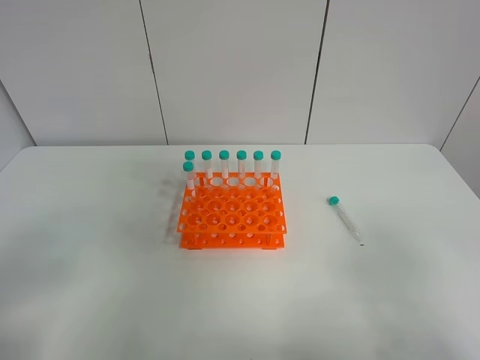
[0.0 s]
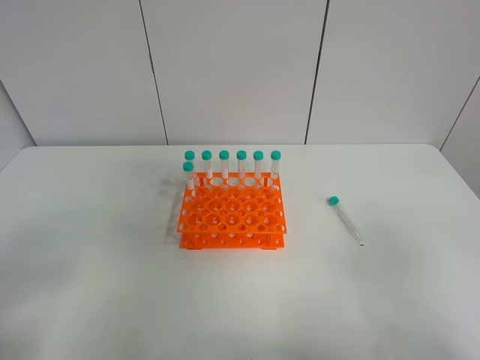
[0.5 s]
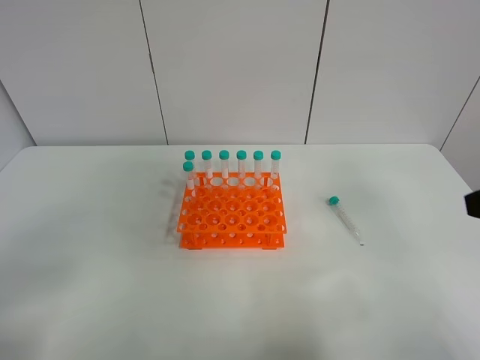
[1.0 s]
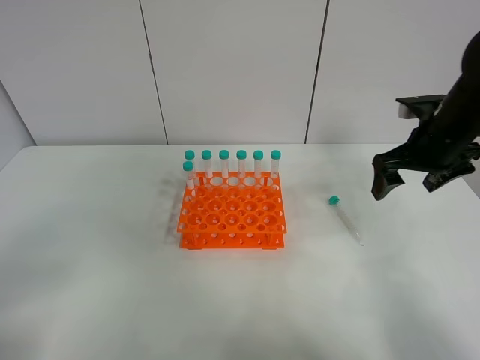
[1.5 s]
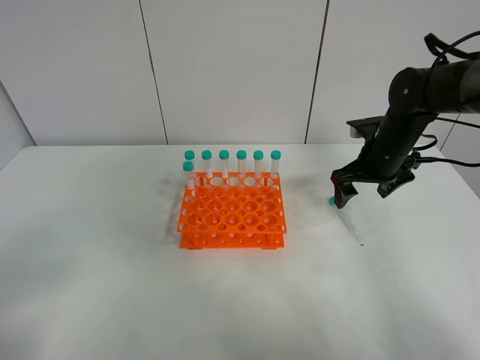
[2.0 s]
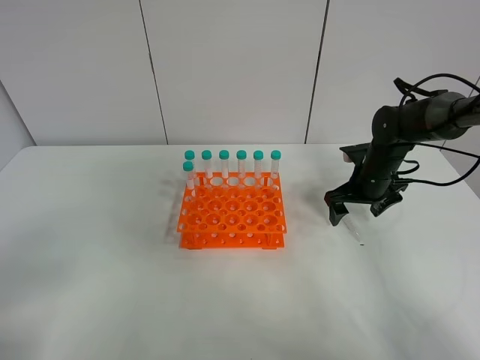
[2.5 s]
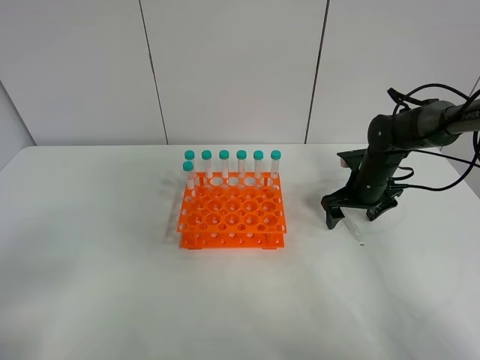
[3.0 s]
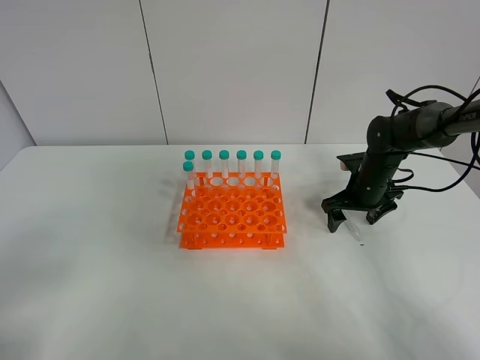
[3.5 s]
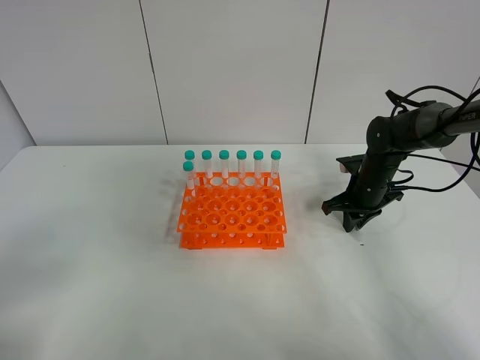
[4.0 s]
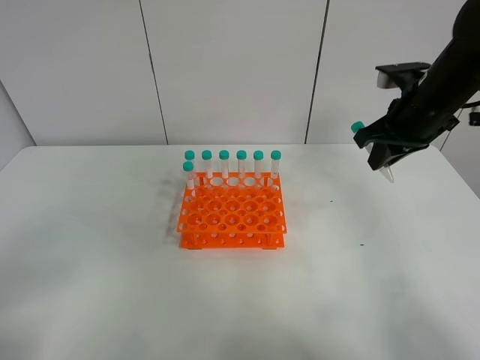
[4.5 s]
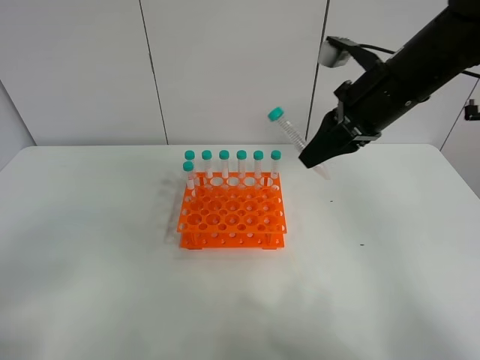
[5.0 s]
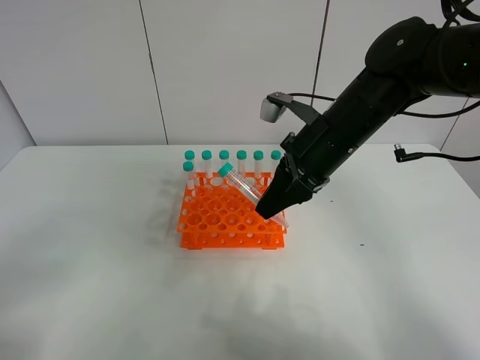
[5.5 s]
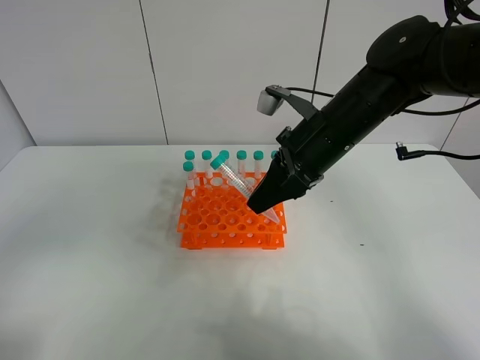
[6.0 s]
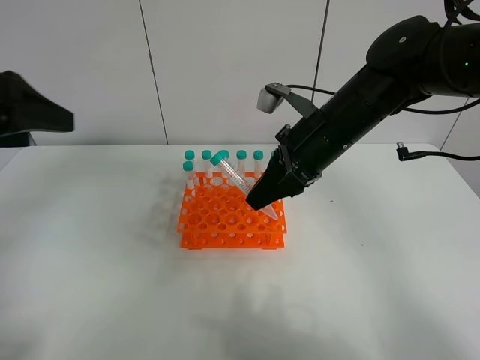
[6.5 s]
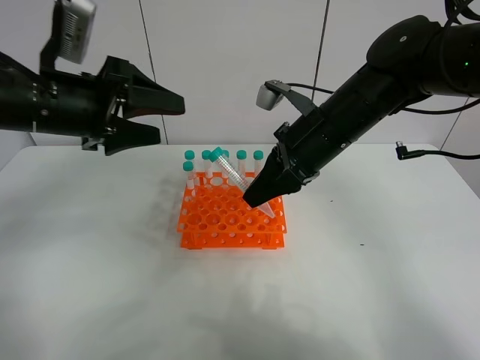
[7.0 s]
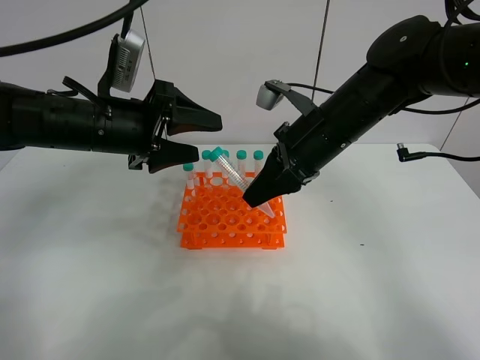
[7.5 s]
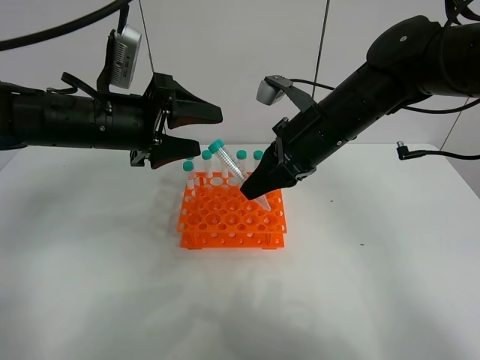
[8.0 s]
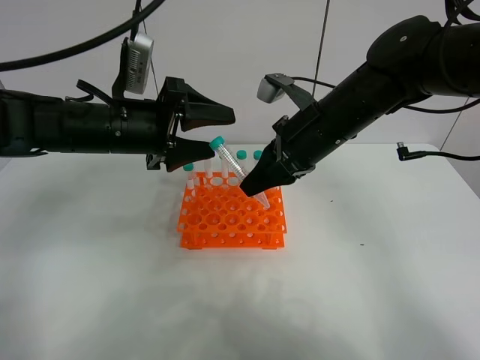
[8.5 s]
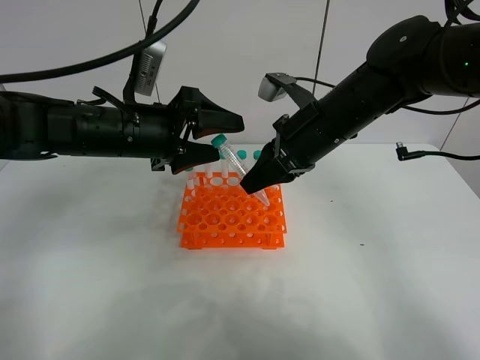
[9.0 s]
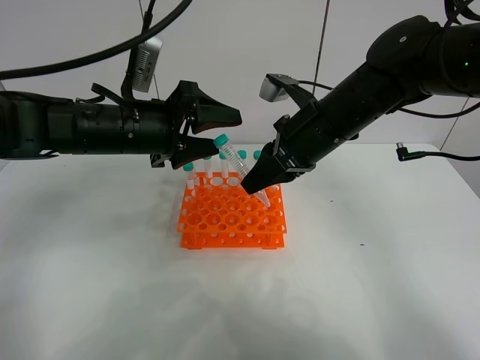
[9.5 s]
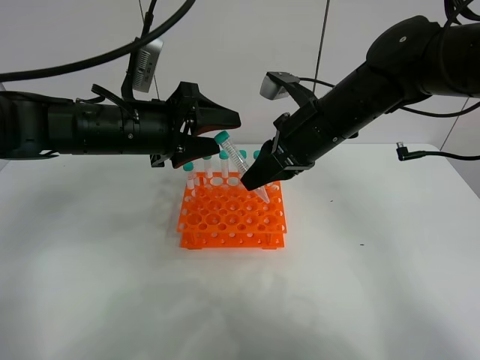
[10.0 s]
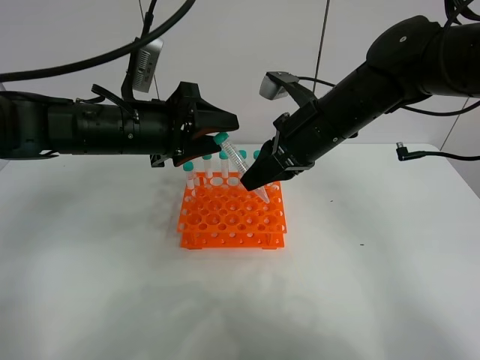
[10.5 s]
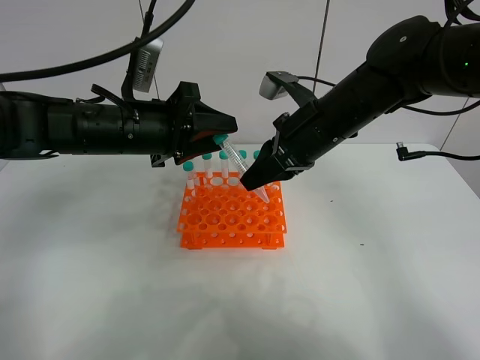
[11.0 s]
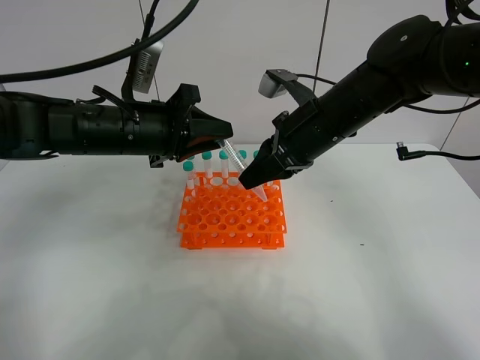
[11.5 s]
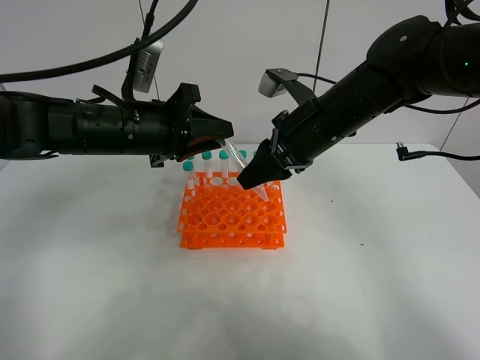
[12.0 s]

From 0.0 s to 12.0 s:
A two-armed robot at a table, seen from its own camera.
Task of the whole recording: Put the test tube on the table back onto the test tube rack.
Step, from 0.0 s to 4.5 s: Pick up the test tube with the right gripper.
From 0.0 s to 2.0 s: The right gripper heads forward, covering about 40 cm.
From 2.0 s to 4.0 s: The right gripper heads downward, covering about 10 cm, and closes up.
From 4.0 s to 6.0 s: The right gripper is displaced upward, to the left and backward by some 25 cm. Meanwhile the left gripper heads upward, covering roughly 5 cm.
From 6.0 s to 8.0 s: The left gripper travels forward and to the right by roughly 30 cm.
From 8.0 s to 10.0 s: There are only small adjustments of the grippers.
From 10.0 s to 12.0 s: The left gripper closes up. The right gripper opens its fingers.

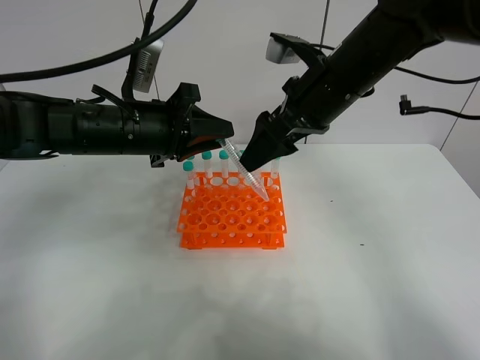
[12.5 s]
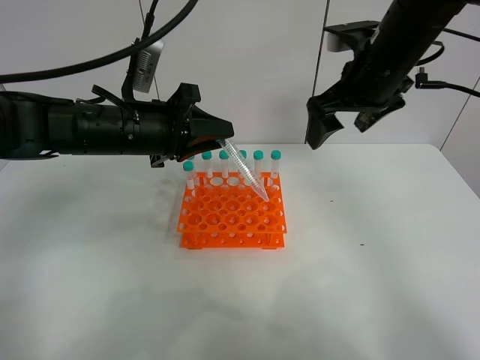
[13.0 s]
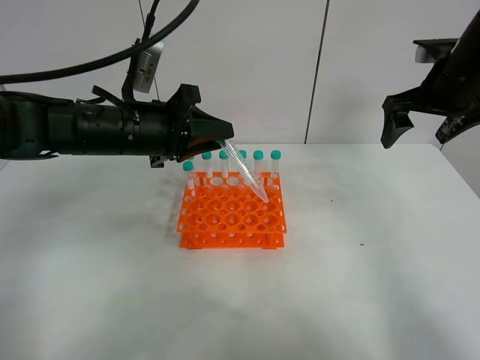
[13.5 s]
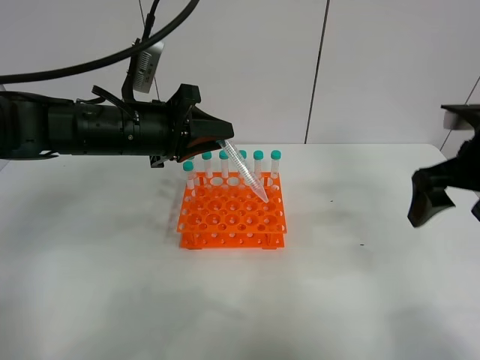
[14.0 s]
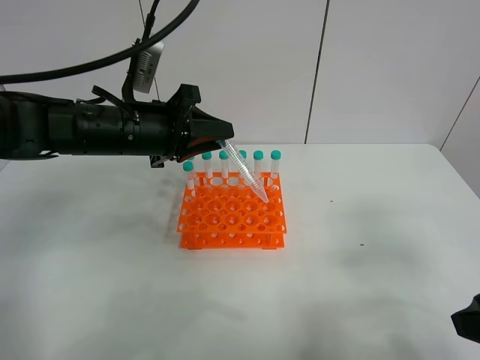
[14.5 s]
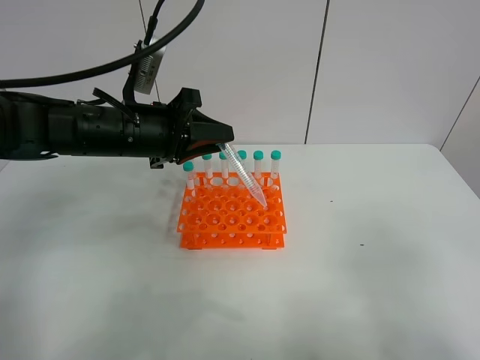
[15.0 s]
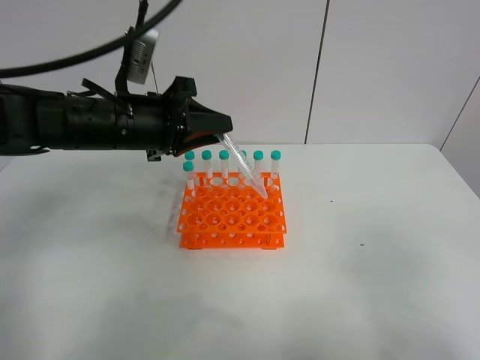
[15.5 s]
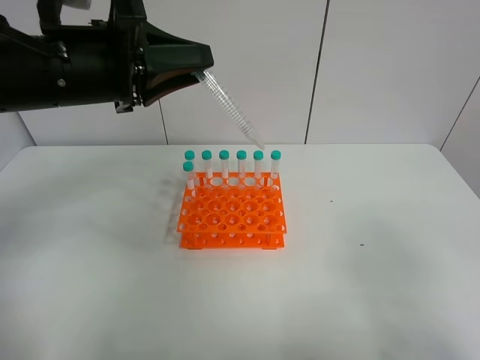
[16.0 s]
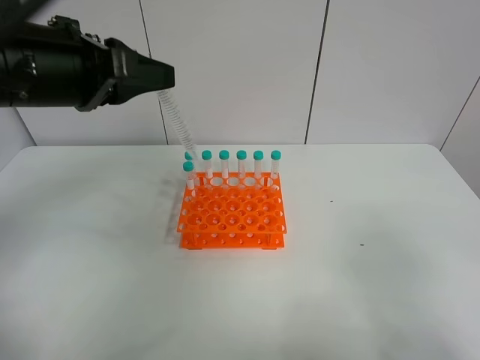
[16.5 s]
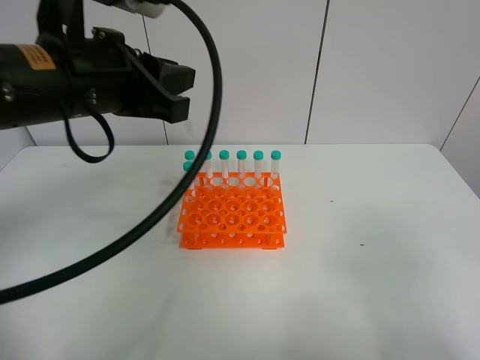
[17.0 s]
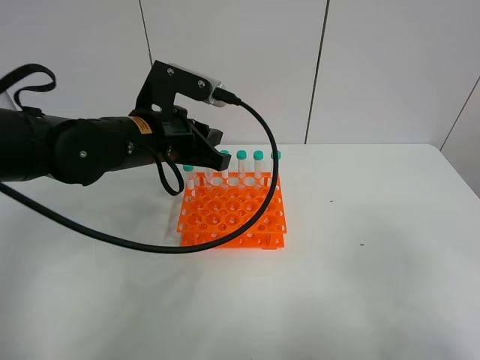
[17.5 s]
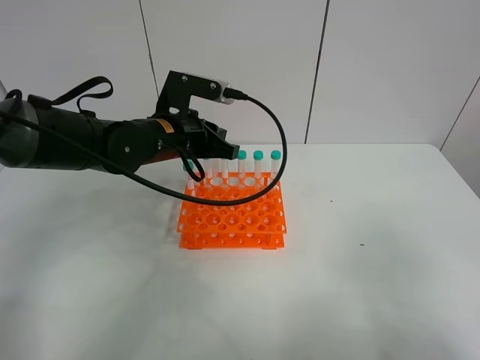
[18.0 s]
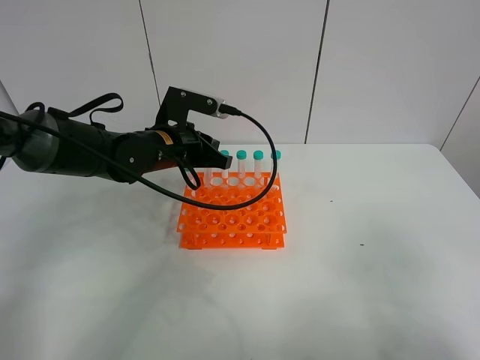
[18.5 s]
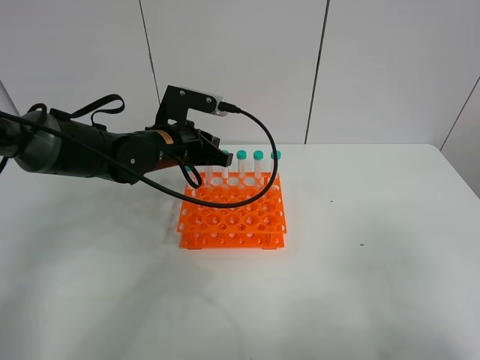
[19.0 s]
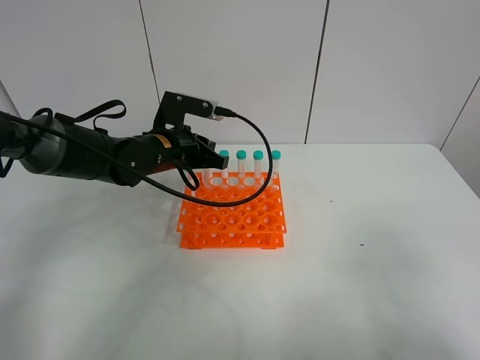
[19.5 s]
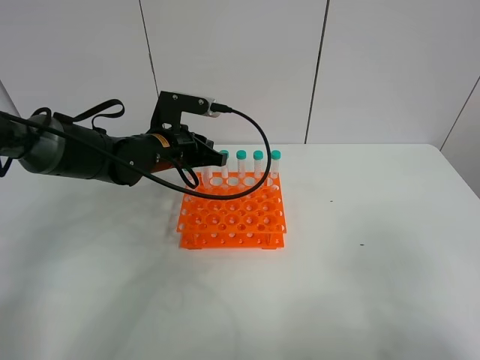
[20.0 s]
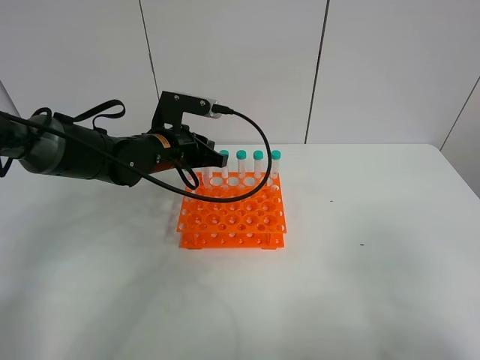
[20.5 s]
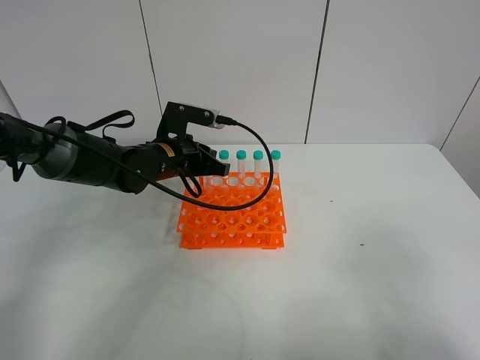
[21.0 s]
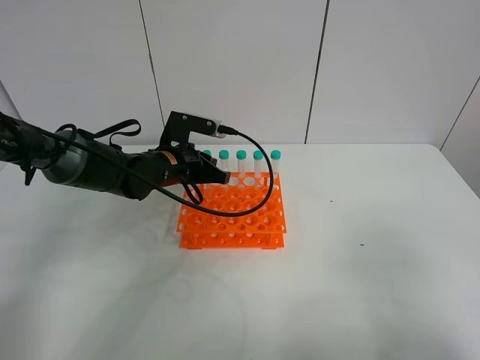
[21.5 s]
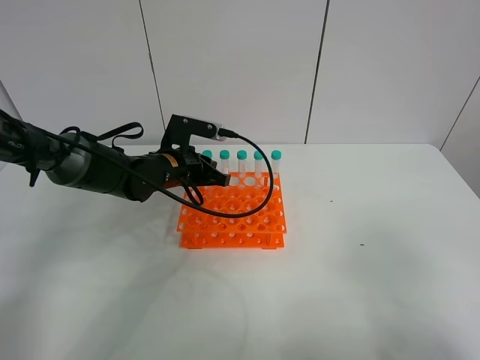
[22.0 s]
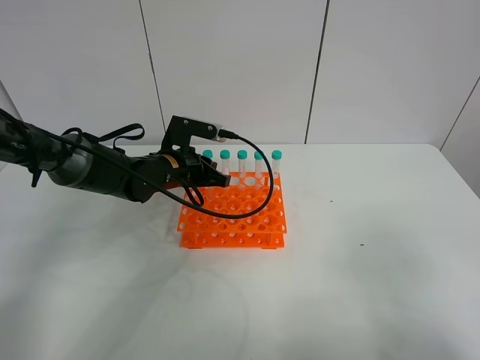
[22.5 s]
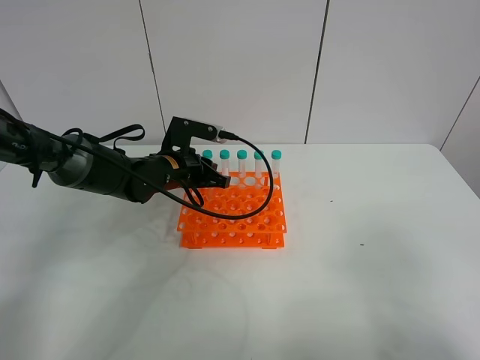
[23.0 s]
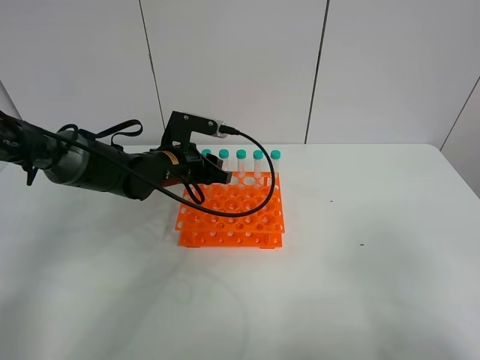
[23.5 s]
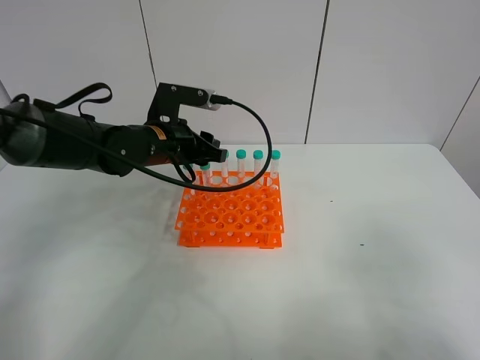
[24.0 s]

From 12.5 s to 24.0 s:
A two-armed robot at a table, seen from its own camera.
Task of the whole recording: Put the test tube on the table back onto the test tube rack.
From 12.5 s to 14.5 s: The right gripper is displaced backward and to the right by about 30 cm.
From 14.5 s to 16.5 s: The right gripper moves backward, roughly 10 cm, while the left gripper shifts about 15 cm upward and backward.
From 16.5 s to 18.5 s: The left gripper goes about 20 cm downward, forward and to the right.
From 18.5 s to 22.0 s: The grippers make only small movements.
From 22.0 s to 24.0 s: The left gripper shifts about 5 cm upward, and opens its fingers.

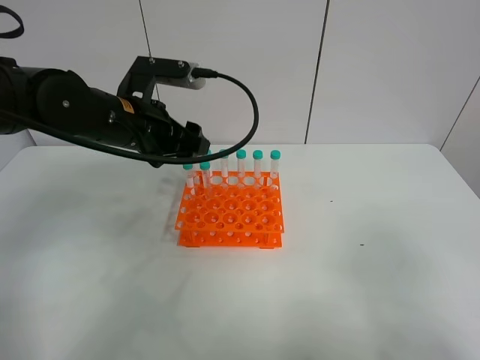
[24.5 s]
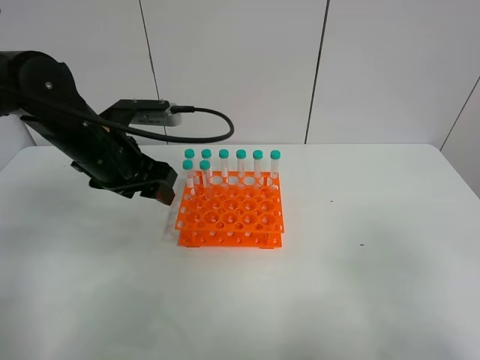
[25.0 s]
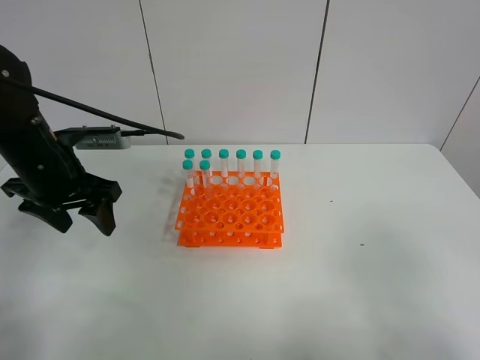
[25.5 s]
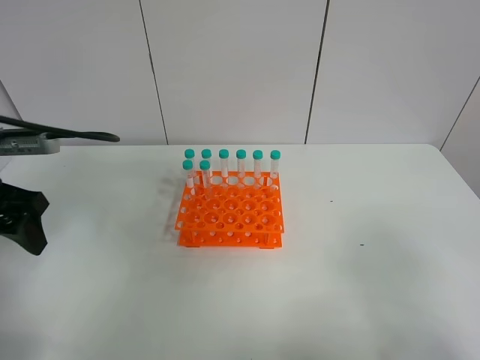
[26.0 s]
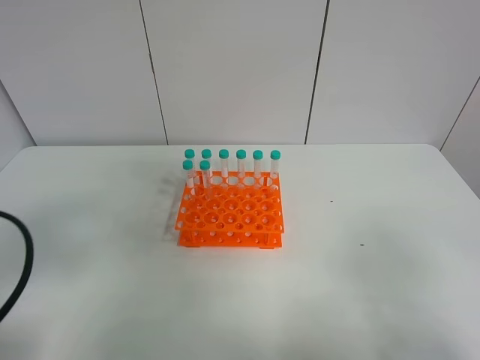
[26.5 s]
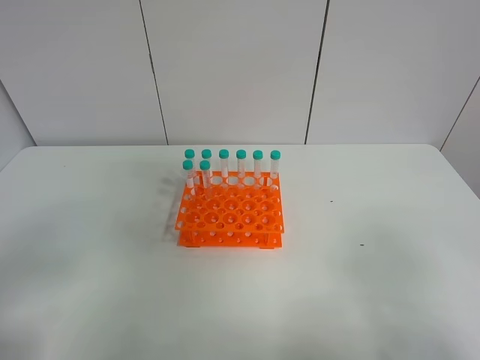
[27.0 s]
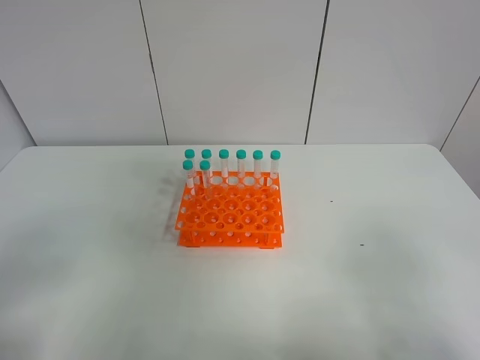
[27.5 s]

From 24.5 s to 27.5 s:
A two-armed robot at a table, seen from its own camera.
Task of the whole recording: Put the test tube on the table back onto the test tube rack.
From 24.5 s to 26.0 s: The left gripper is displaced to the left and backward by approximately 20 cm.
From 26.0 s to 27.5 s: The left gripper is displaced backward by about 20 cm.
